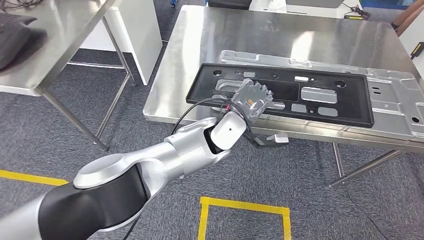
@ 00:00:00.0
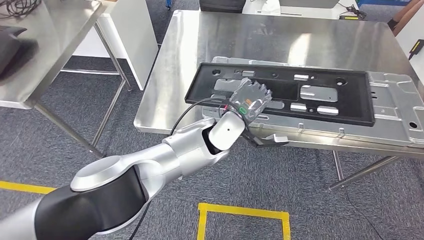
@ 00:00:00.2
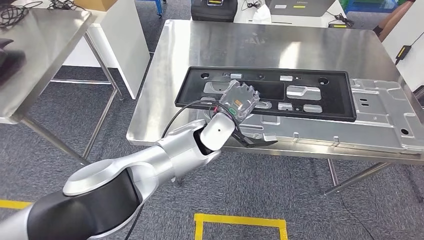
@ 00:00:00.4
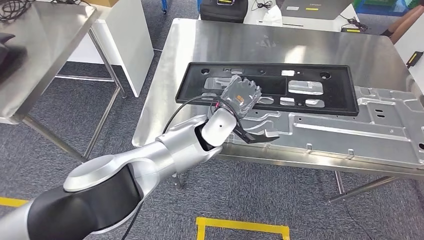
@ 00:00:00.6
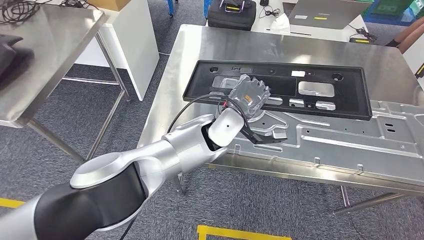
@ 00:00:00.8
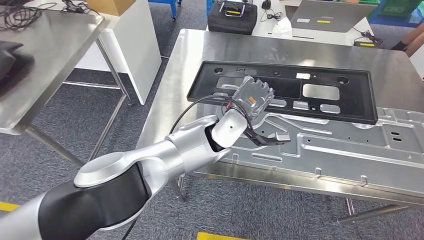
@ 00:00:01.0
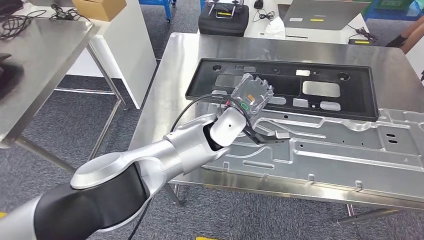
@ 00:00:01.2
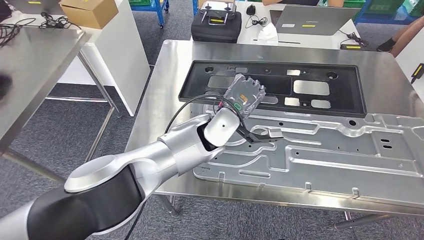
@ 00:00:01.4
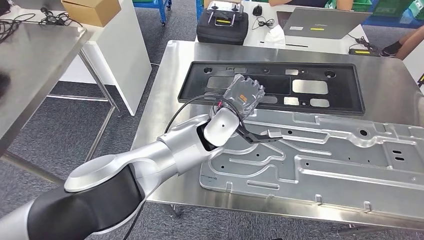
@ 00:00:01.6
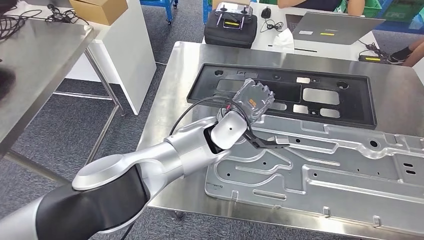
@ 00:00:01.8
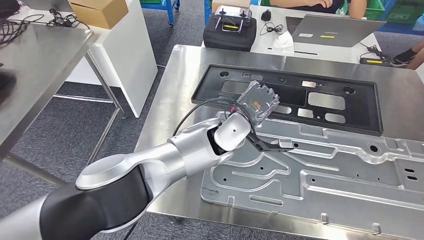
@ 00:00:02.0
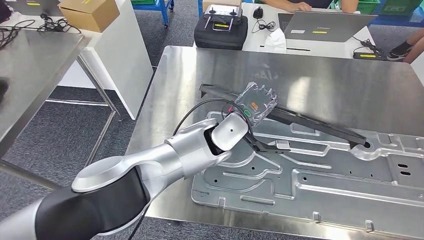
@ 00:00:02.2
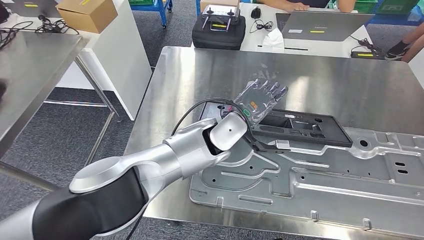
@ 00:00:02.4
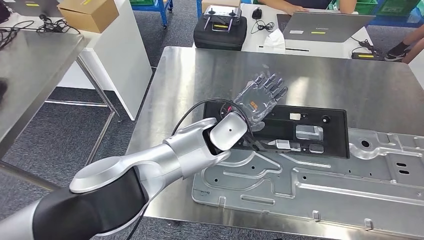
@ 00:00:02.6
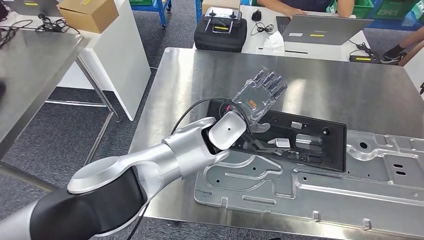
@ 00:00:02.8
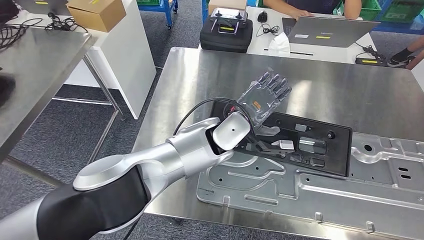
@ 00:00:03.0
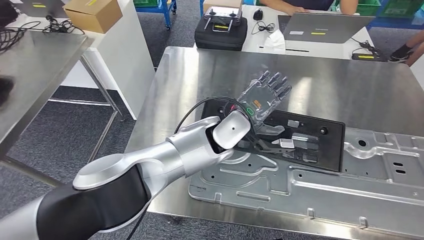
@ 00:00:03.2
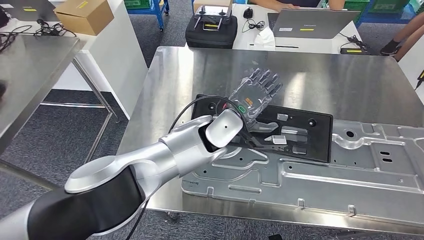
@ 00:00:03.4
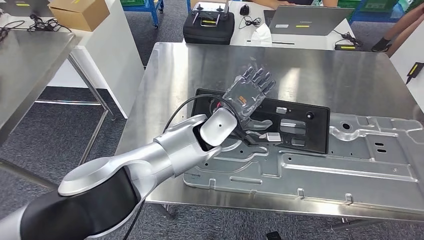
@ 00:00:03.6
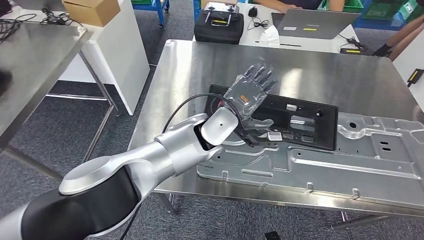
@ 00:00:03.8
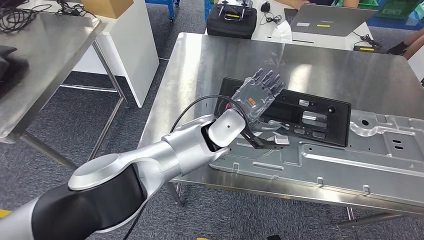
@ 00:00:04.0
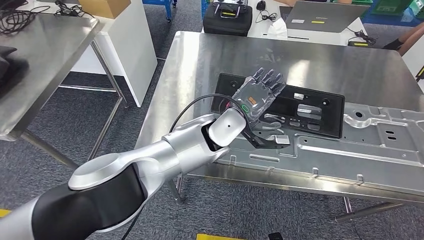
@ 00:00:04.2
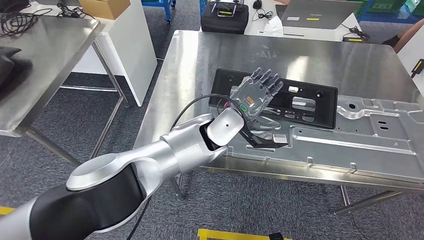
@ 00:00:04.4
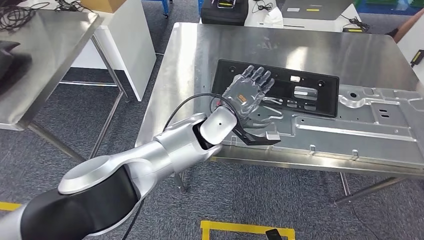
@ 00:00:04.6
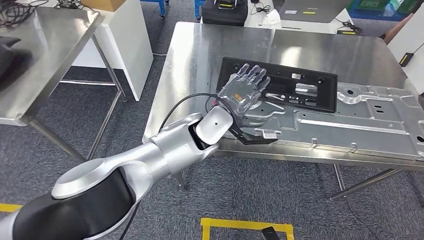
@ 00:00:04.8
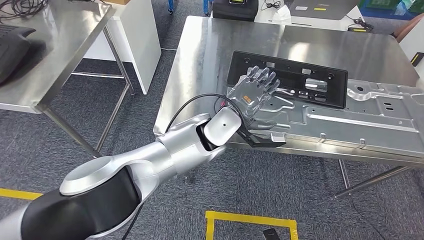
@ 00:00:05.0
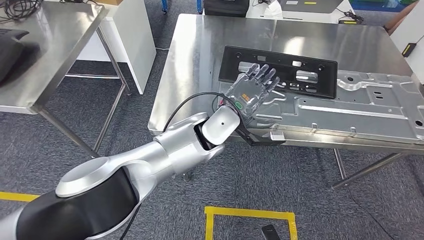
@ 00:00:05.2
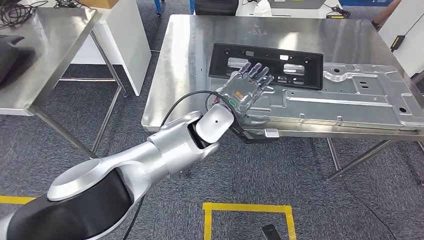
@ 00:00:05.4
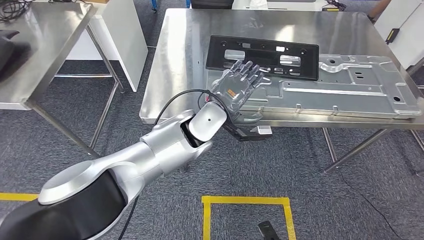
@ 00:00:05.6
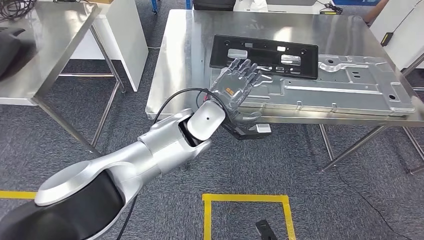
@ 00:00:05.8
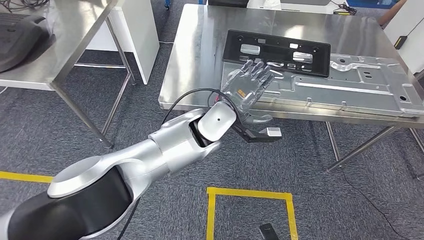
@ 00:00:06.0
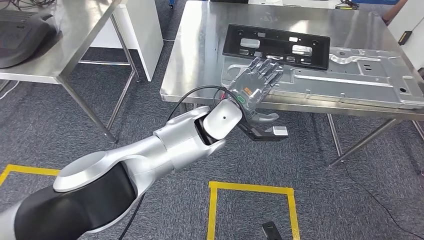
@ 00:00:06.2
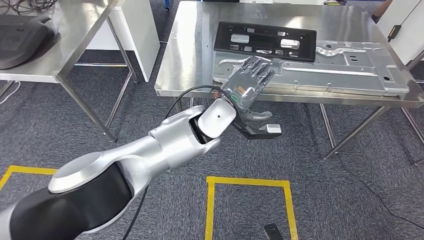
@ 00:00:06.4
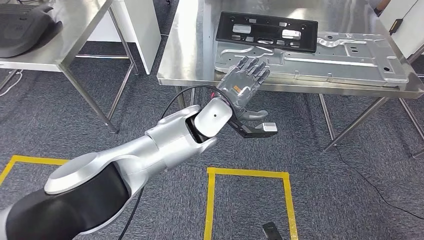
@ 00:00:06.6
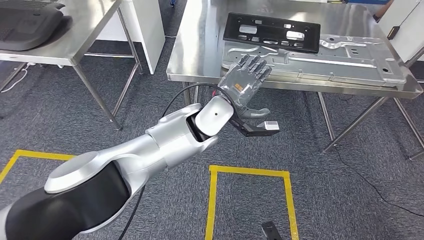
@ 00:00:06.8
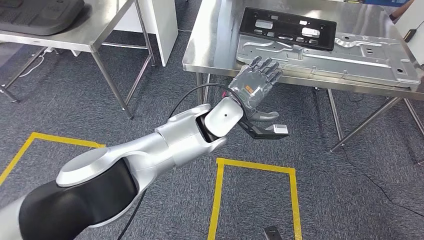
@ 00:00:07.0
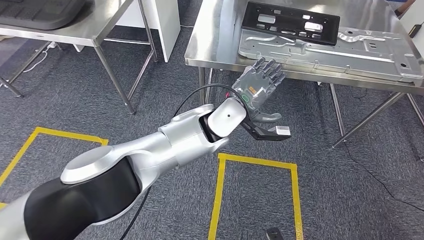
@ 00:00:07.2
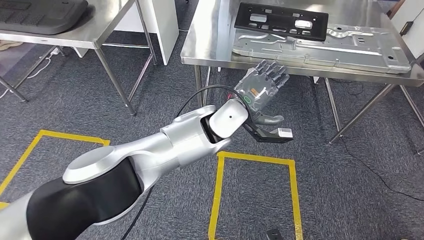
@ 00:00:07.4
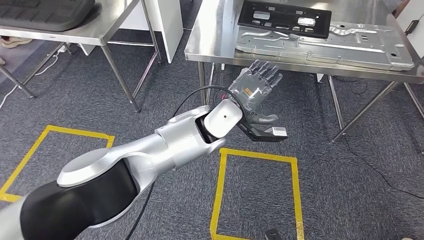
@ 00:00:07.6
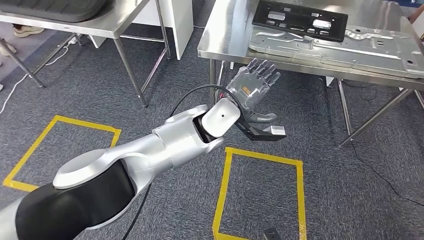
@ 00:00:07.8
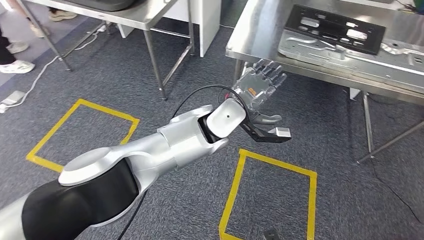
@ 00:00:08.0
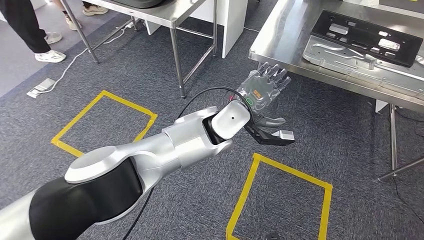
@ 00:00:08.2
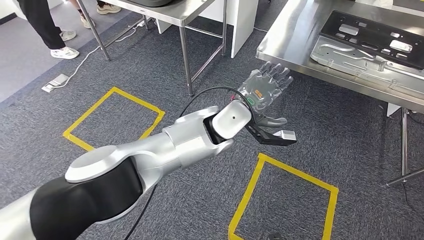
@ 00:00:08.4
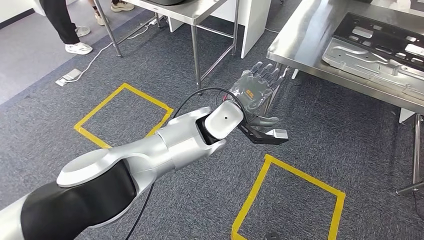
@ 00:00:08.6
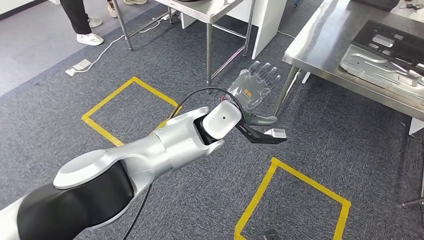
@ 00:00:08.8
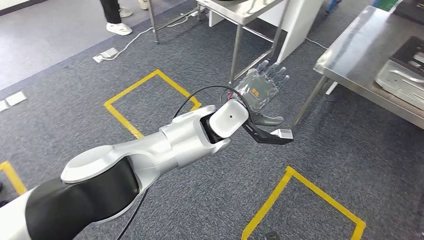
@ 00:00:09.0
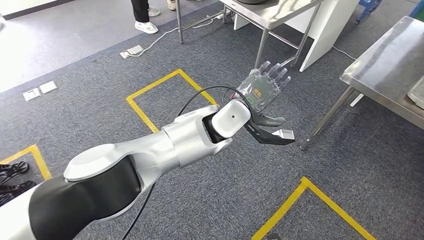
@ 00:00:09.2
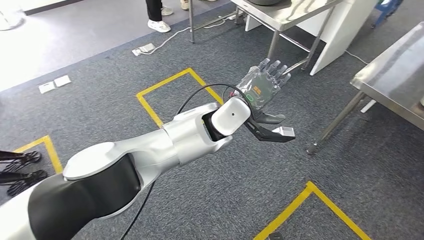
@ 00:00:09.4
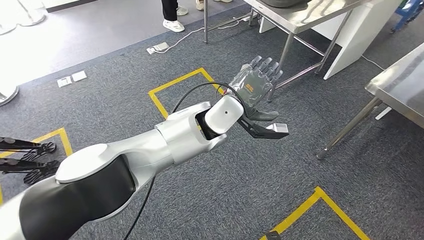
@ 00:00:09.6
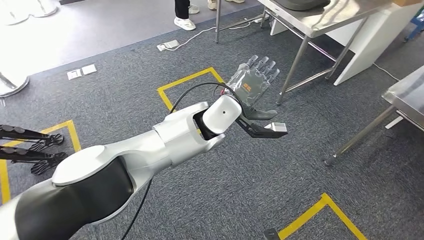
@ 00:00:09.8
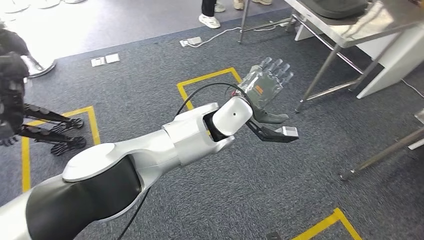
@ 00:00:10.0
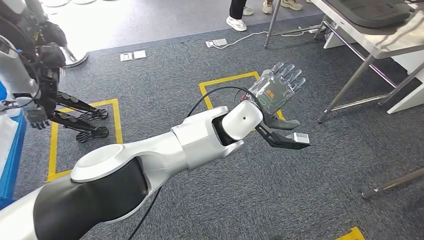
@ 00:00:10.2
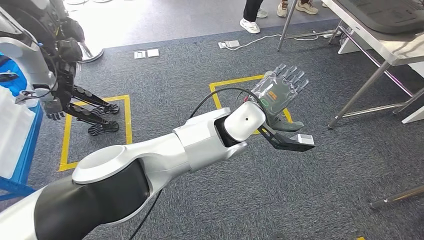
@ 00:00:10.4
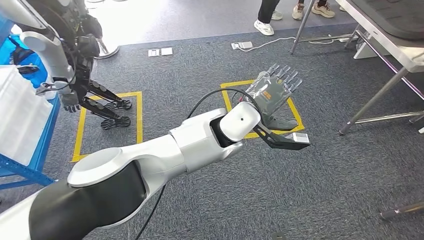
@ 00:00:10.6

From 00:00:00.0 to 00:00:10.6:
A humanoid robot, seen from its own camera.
Step, from 00:00:00.0 to 00:00:04.8: Insert the large material into the corresponding slot on the workbench.
Step, from 00:00:05.0 to 00:00:10.6: Return to the initial position at the shelf.
